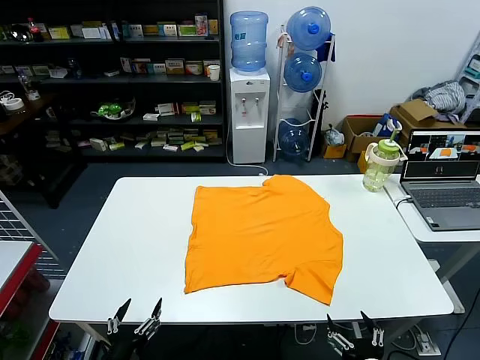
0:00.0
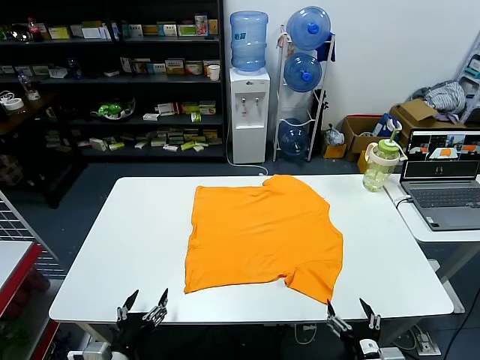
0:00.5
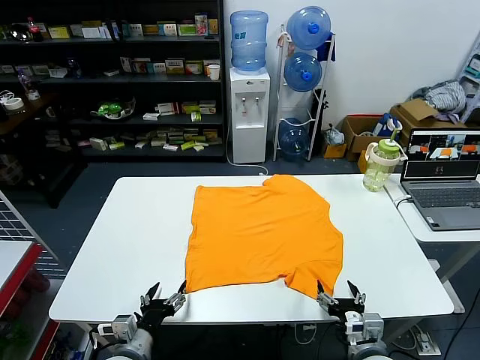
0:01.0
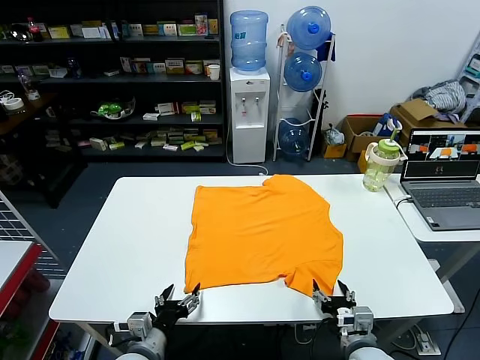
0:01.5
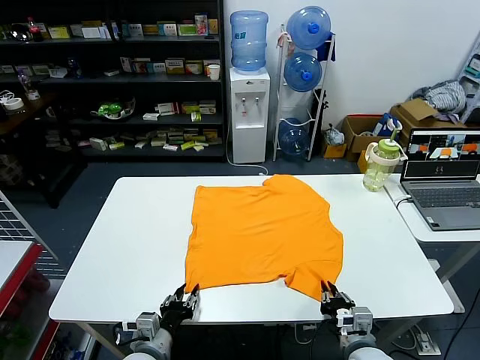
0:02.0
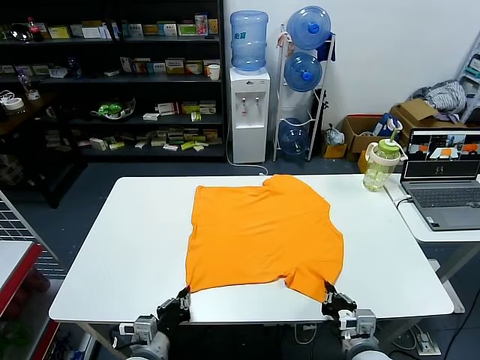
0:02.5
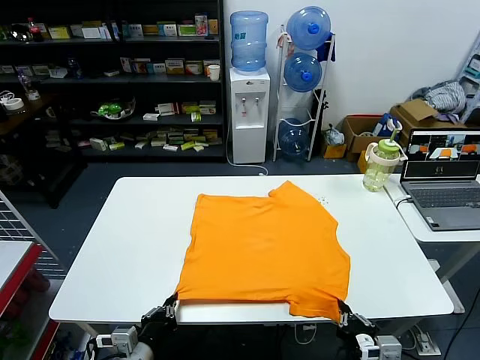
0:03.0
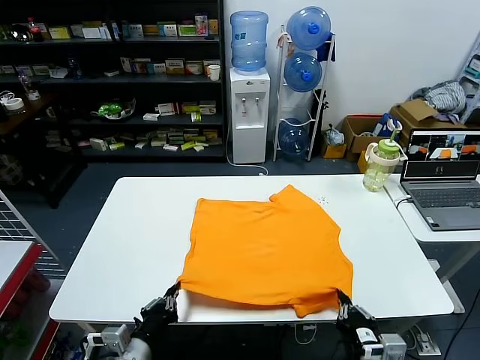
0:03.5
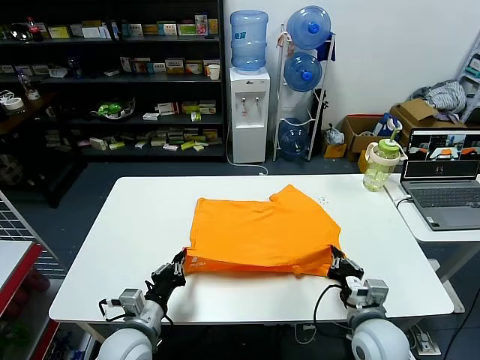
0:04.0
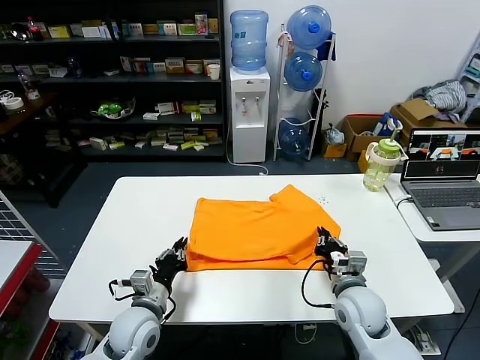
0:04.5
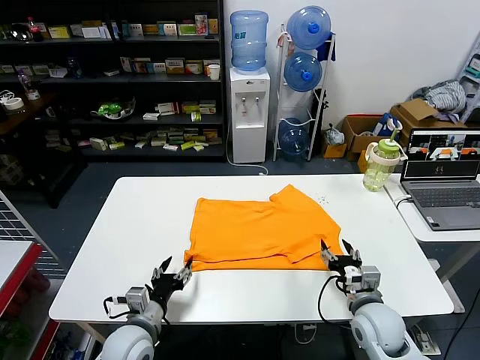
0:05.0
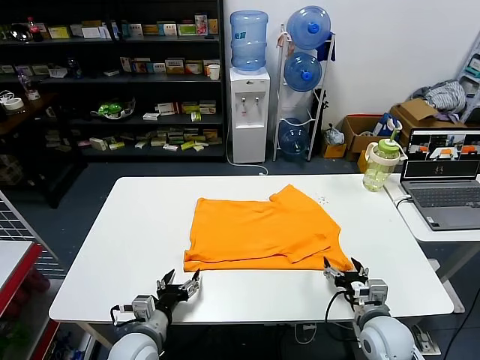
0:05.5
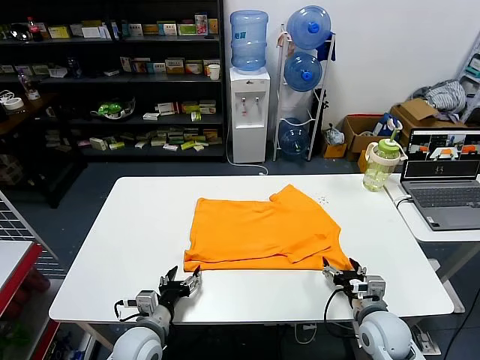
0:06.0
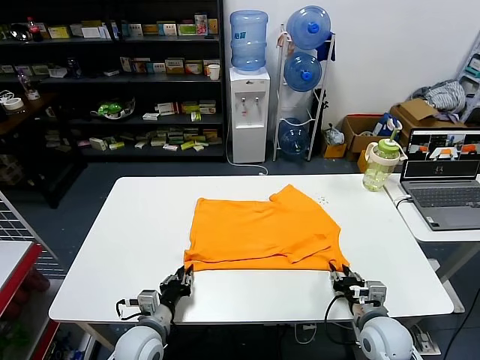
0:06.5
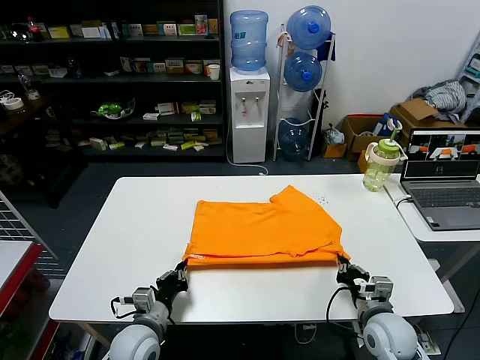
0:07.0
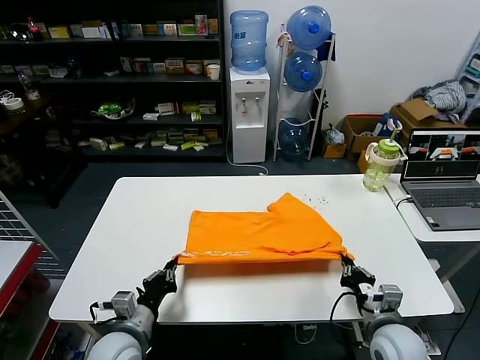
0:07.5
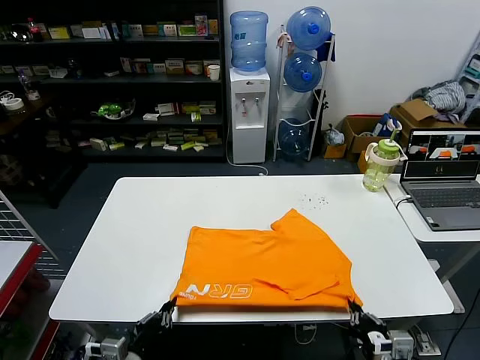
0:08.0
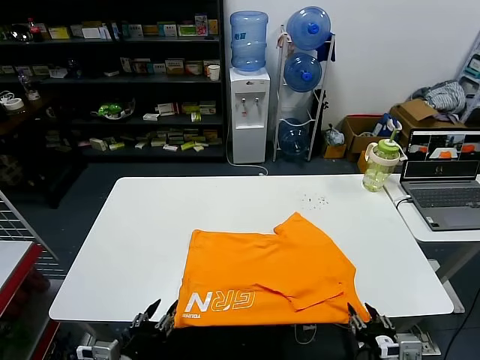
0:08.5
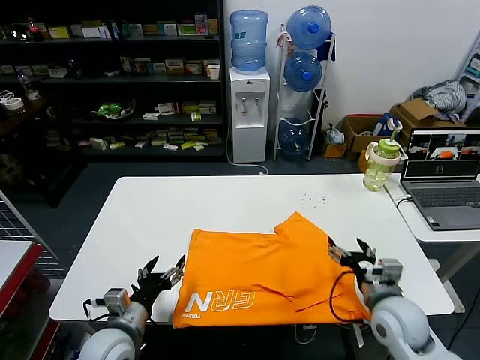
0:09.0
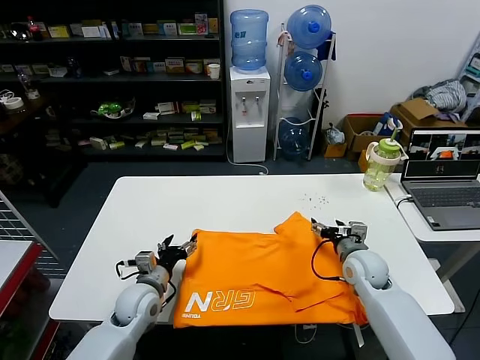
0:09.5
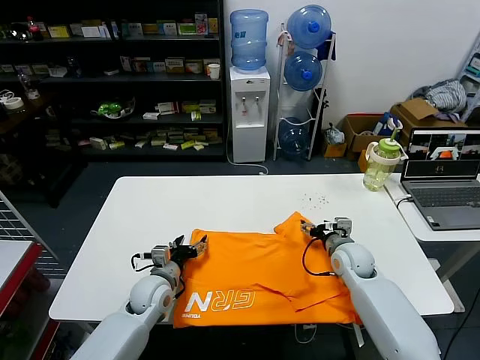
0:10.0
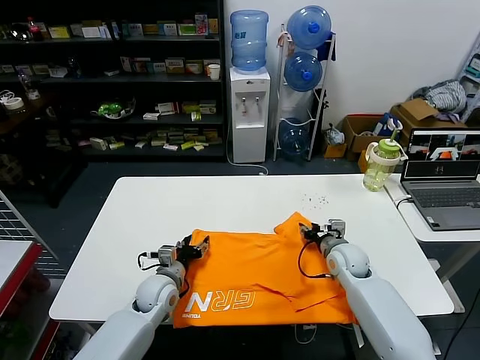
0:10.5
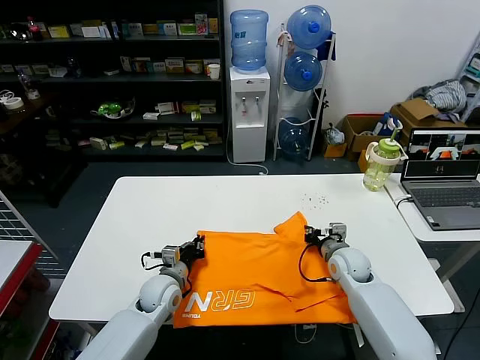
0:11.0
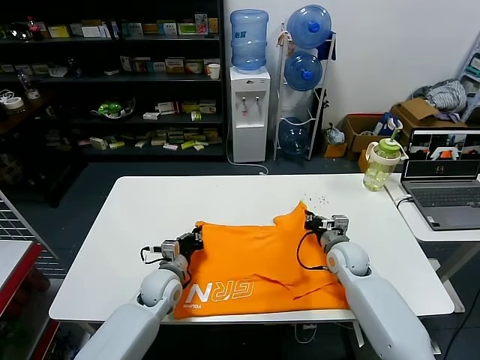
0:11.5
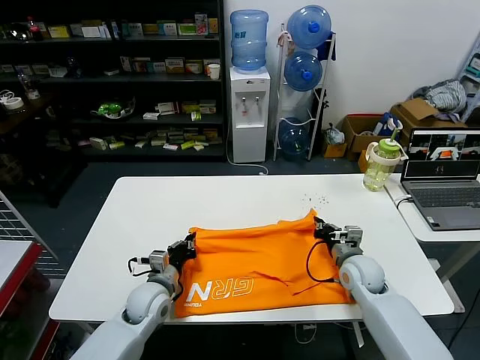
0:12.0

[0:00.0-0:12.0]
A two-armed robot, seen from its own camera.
Task of the whole recording: fold and organize the clothes.
Step, 0:00.0 to 0:02.0: use both grippers simultaneously to clamp the lower edge of the clothing fabric.
Step, 0:02.5 to 0:04.5: use both grippers to drag the lower edge of the fabric forward and fold it over the upper edge.
Step, 0:05.0 to 0:08.0: Drag the clothes downward with both gripper.
Step, 0:08.5 to 0:11.0: use both grippers simultaneously to clamp the upper edge of the clothing fabric.
0:02.0 to 0:04.0: Both grippers move upward, roughly 5 cm. The right gripper goes backward and returns, about 5 cm each way. The left gripper closes up.
0:04.0 to 0:06.0: The two grippers go approximately 5 cm downward. The right gripper opens its fingers, while the left gripper opens.
0:06.0 to 0:08.0: The right gripper goes roughly 15 cm backward, and closes, while the left gripper goes about 10 cm backward and upward, and closes its fingers.
0:08.0 to 0:10.0: The grippers both shift forward by some 25 cm. The left gripper opens. Meanwhile the right gripper opens.
0:10.0 to 0:12.0: The left gripper closes up. The right gripper closes its fingers.

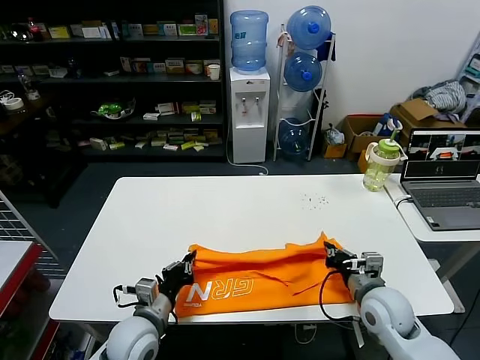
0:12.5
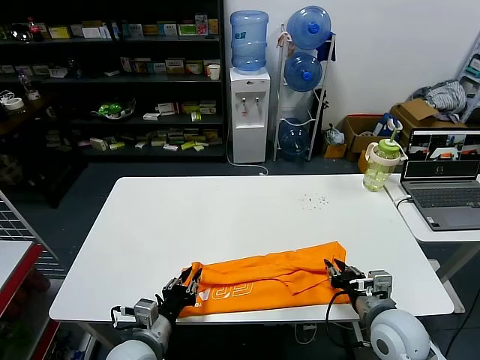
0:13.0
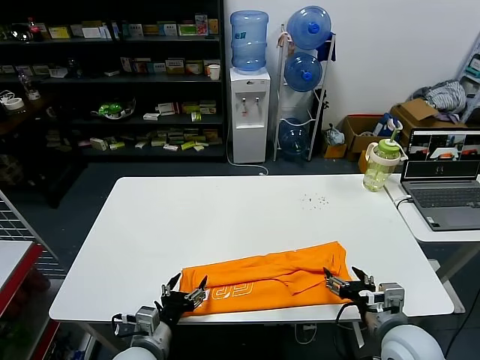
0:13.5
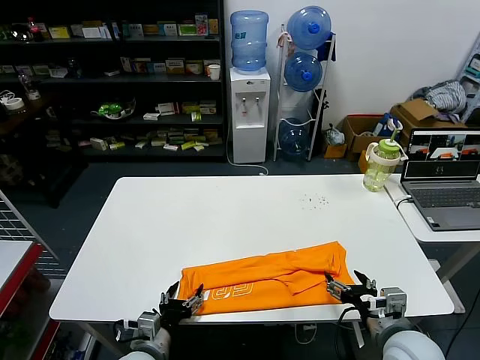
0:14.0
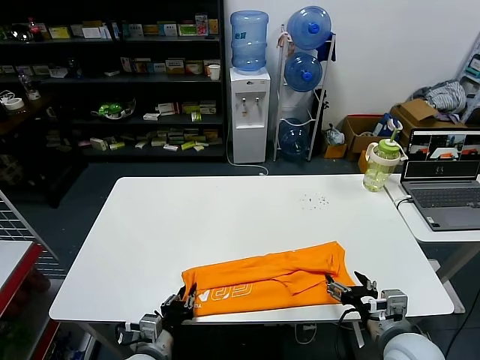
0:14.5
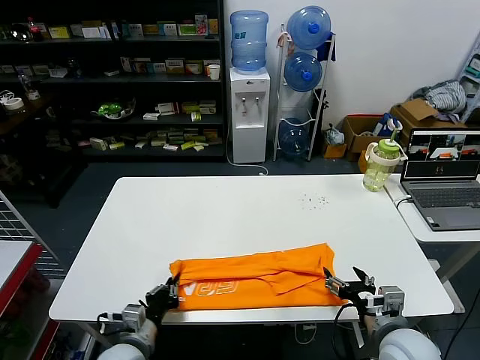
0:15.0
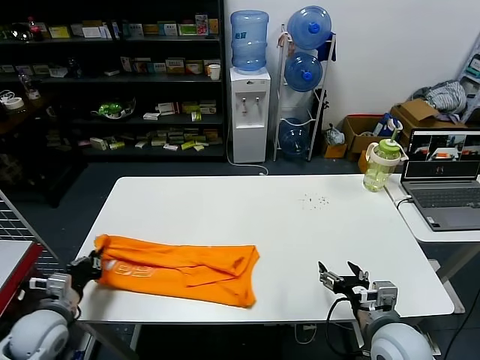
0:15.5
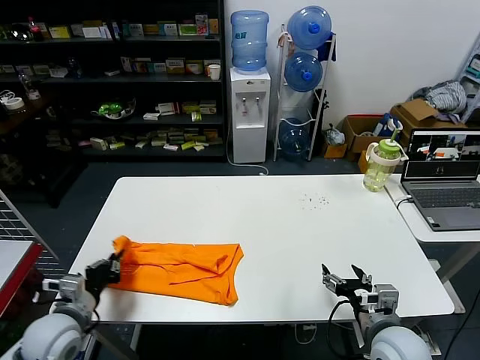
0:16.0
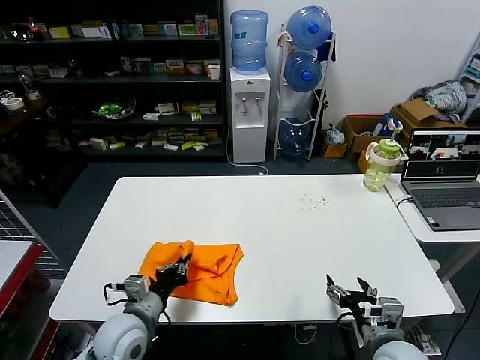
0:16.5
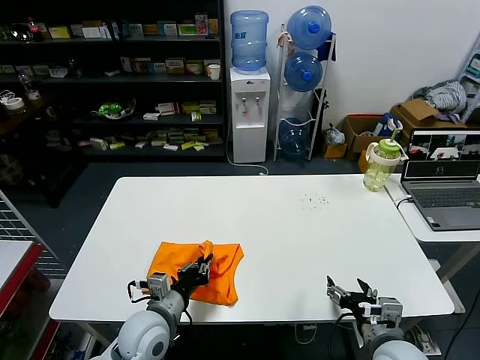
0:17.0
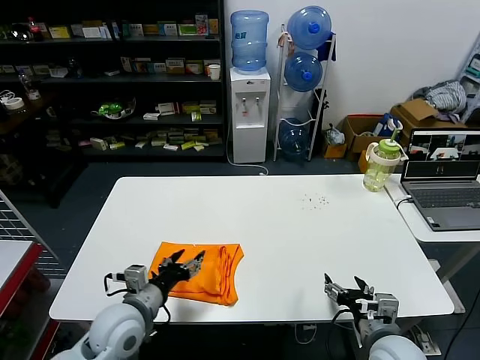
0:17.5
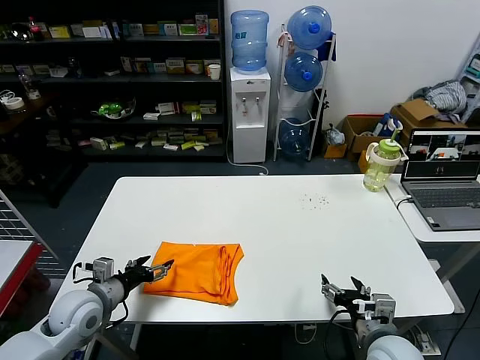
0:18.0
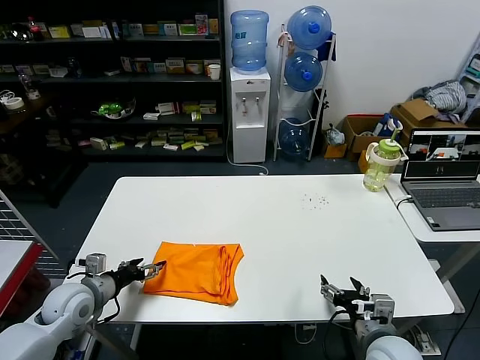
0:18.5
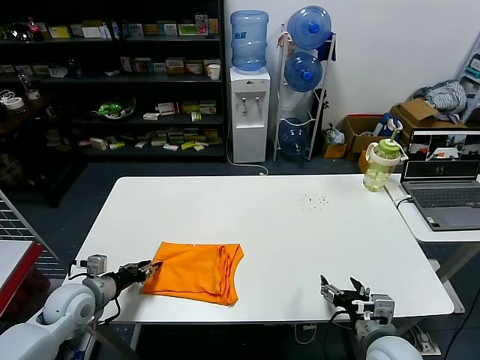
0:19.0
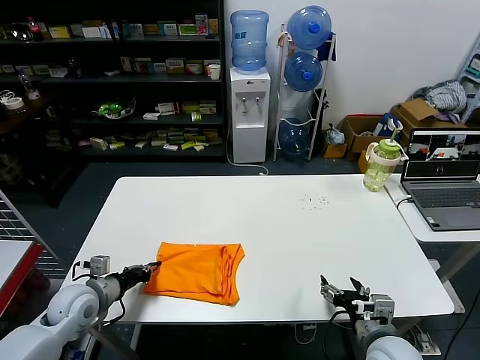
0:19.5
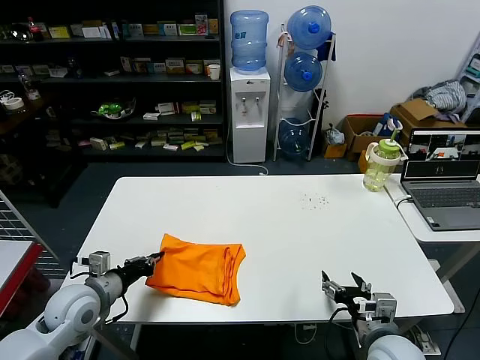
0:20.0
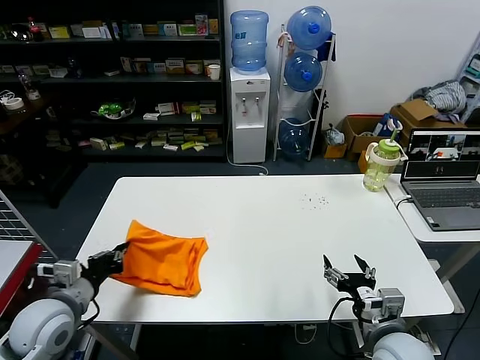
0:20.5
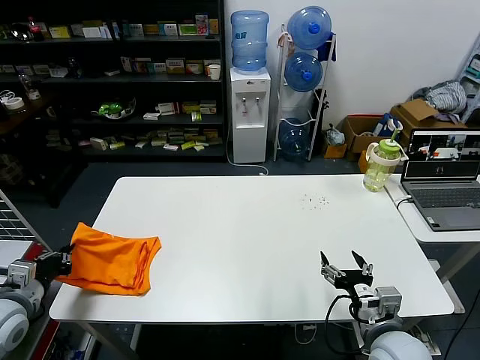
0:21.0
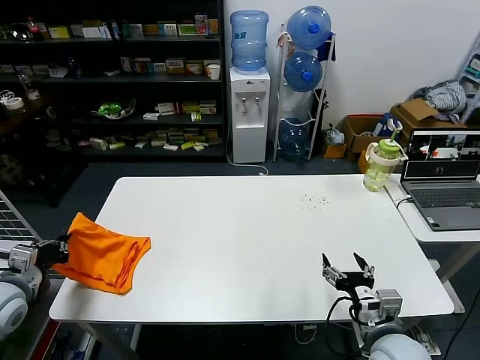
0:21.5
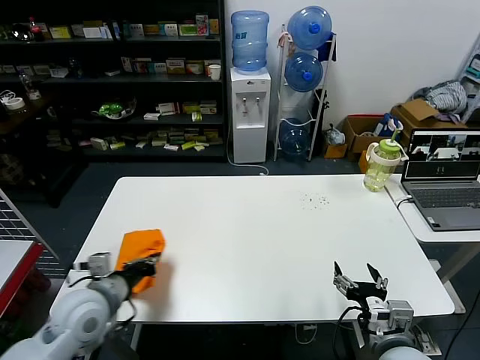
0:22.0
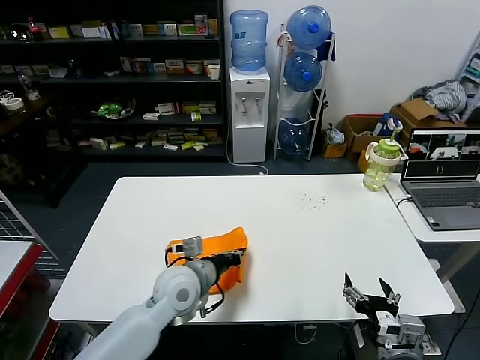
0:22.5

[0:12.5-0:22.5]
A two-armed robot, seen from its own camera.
Task of the whole recording: fold and organize the clothes.
Step, 0:13.5 to 0:14.5: use the left gripper to clamp the left edge of the fabric.
Step, 0:15.0 to 0:17.0: use the left gripper to drag the left edge of the fabric to the left and folds it over the right edge.
0:12.5 to 0:14.5: The right gripper moves backward, approximately 10 cm, and opens up; the left gripper heads backward and downward, covering roughly 10 cm, and opens and closes again.
0:14.5 to 0:16.5: The left gripper shifts roughly 10 cm upward, and goes to the left and returns, roughly 20 cm each way.
0:16.5 to 0:18.5: The left gripper moves to the left and forward, about 15 cm, and opens up.
0:18.5 to 0:20.5: The left gripper heads upward and backward, covering roughly 10 cm, and closes its fingers.
0:20.5 to 0:22.5: The left gripper shifts some 20 cm to the right.

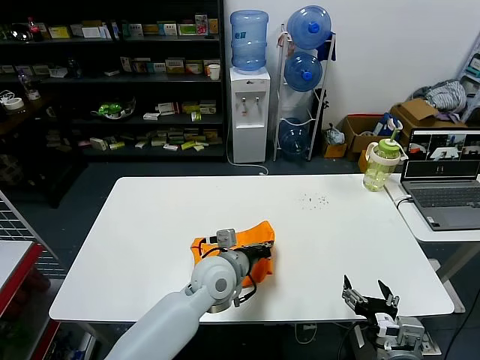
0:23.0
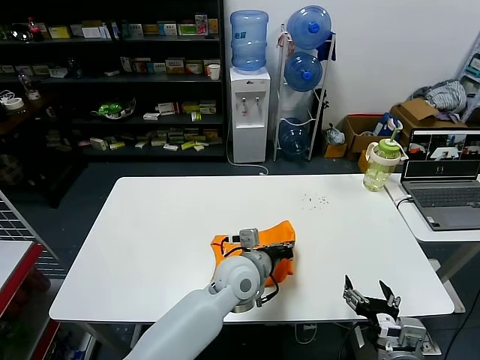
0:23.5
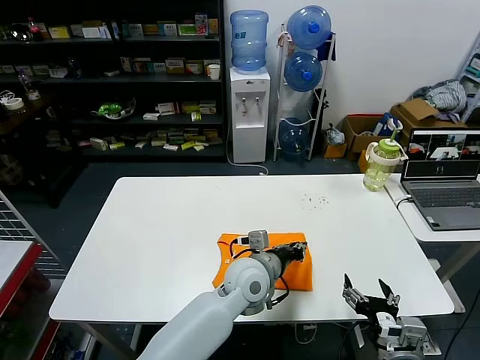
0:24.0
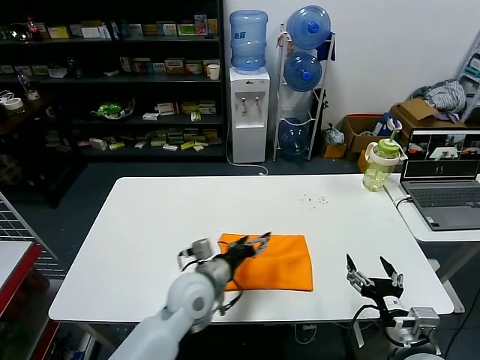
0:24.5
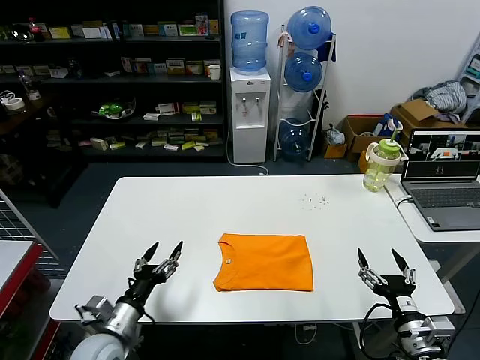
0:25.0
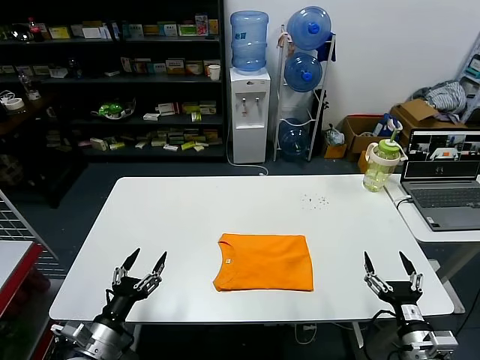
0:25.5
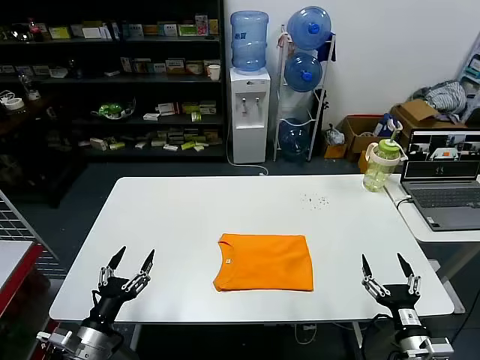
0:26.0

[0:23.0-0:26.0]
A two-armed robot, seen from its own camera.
Task of the whole recording: fold and organize the clothes.
0:23.0 to 0:24.5: The left gripper travels to the right and back again, some 10 cm each way, and opens its fingers.
0:24.5 to 0:26.0: The left gripper heads to the left and backward, covering some 30 cm. The right gripper moves downward, roughly 5 cm.
